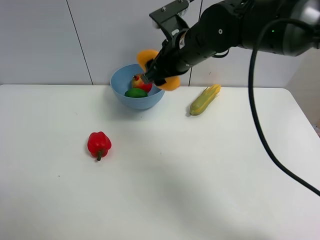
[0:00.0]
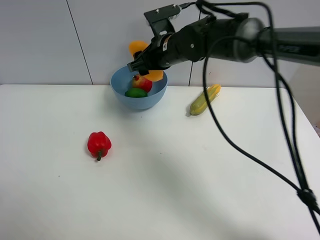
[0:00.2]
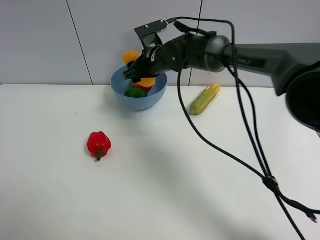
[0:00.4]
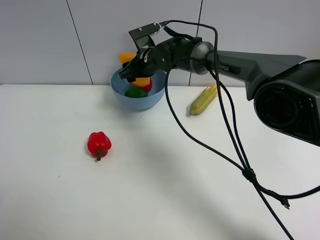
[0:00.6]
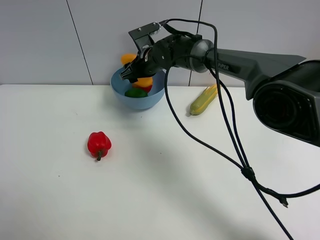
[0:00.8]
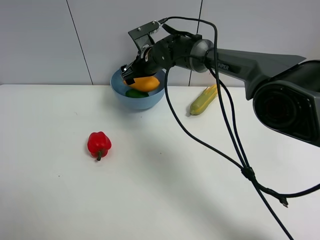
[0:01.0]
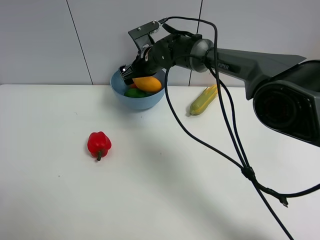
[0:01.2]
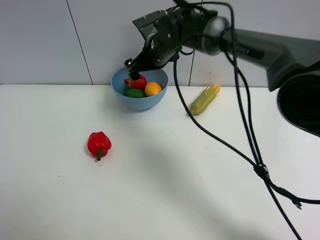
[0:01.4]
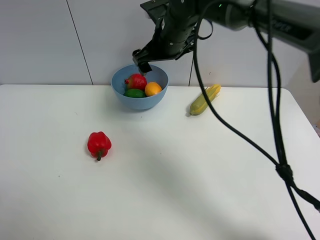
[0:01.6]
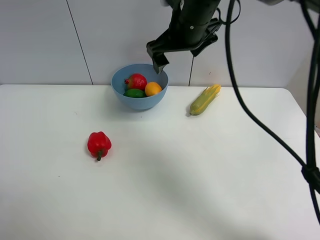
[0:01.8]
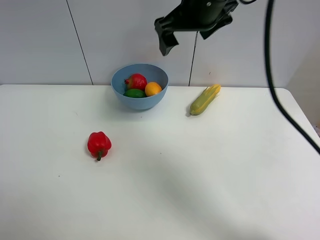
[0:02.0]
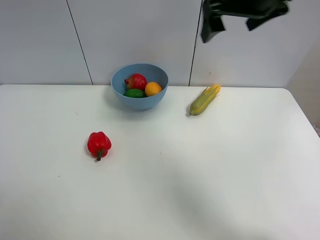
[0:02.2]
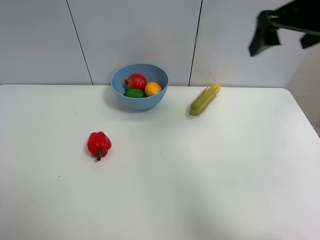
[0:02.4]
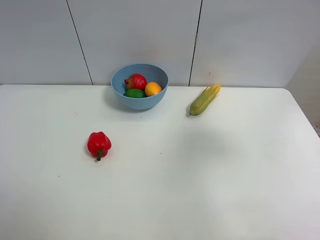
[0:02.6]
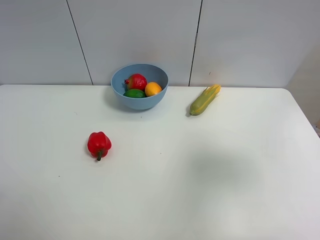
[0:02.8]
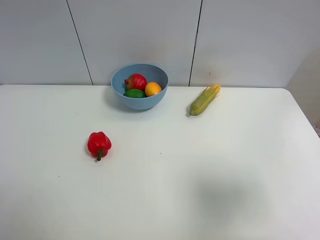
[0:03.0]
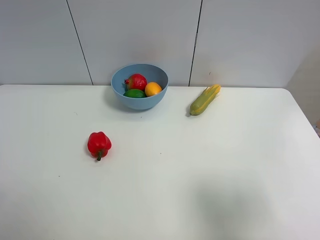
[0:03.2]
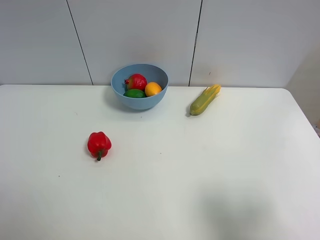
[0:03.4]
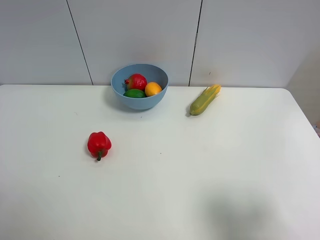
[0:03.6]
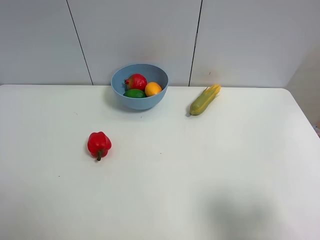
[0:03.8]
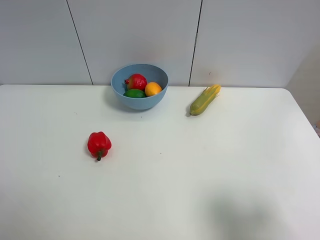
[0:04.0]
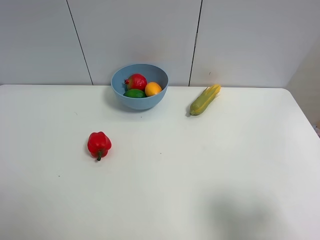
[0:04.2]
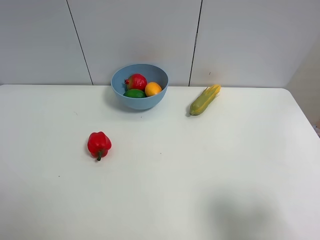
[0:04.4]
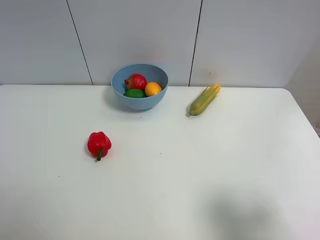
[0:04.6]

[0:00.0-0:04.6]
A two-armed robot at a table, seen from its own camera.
Task of the whole recording: Put the three fruits on the table into a bowl.
Step, 0:00.0 to 0:01.2: Place the mango in the blue bowl with right gripper.
0:00.0 to 0:01.6: The right gripper moves forward, some 5 cm, and opens.
0:01.6 to 0:03.0: The right gripper travels backward and to the right by roughly 50 cm.
0:03.0 to 0:04.6: The right gripper travels downward by roughly 10 cm.
